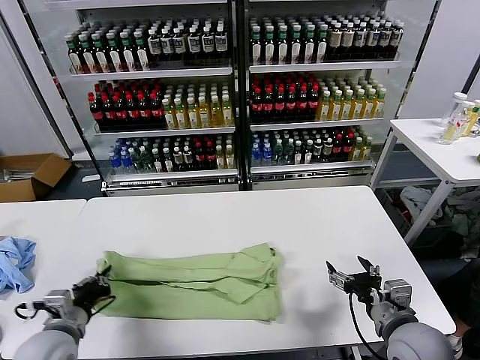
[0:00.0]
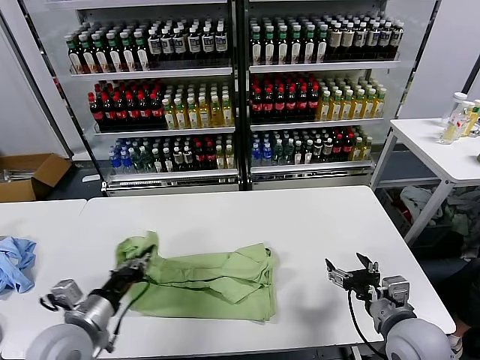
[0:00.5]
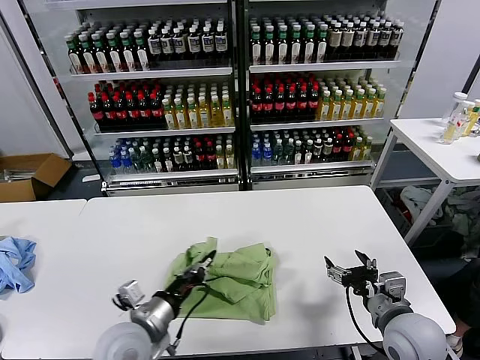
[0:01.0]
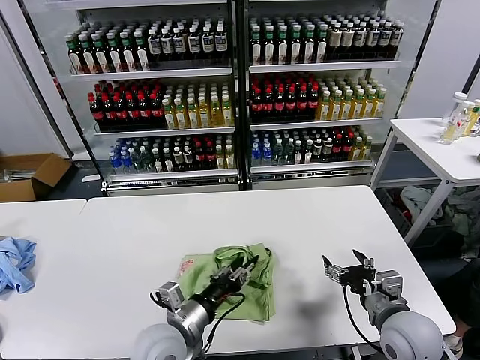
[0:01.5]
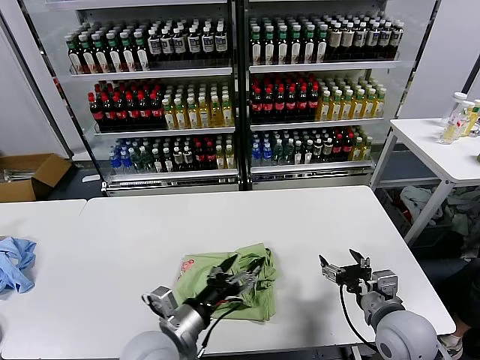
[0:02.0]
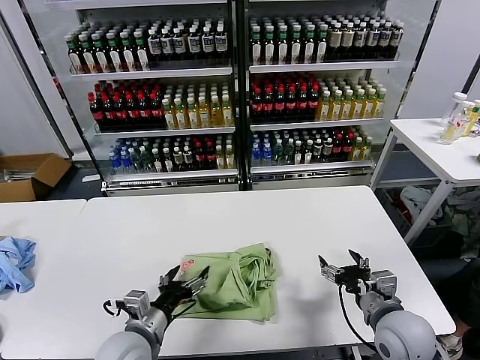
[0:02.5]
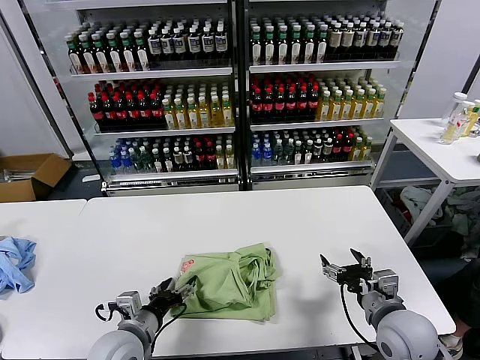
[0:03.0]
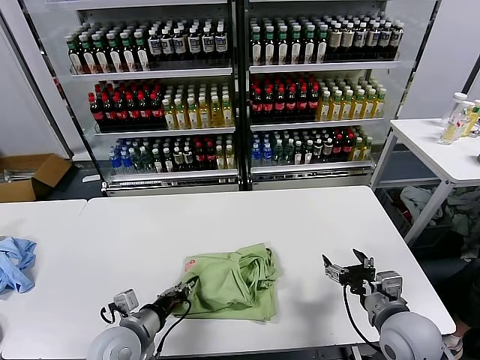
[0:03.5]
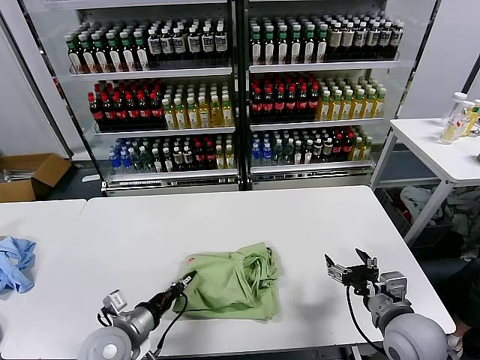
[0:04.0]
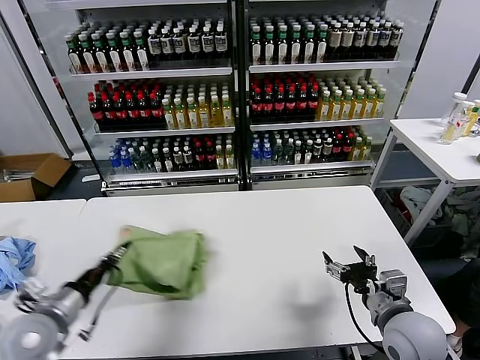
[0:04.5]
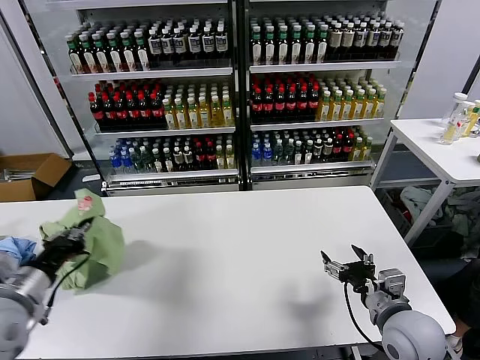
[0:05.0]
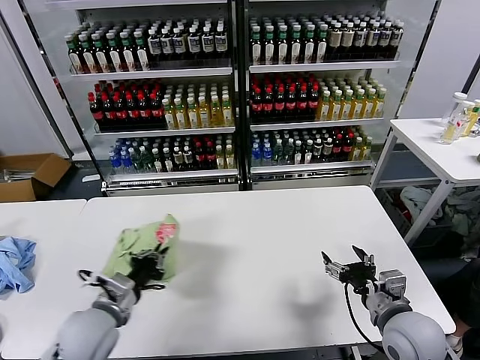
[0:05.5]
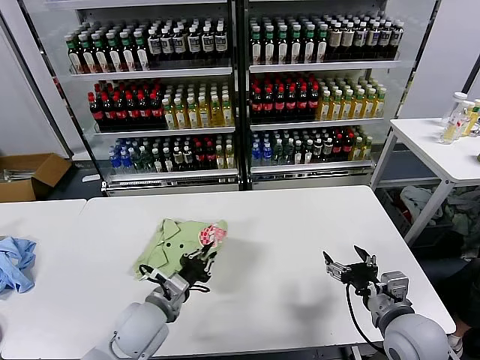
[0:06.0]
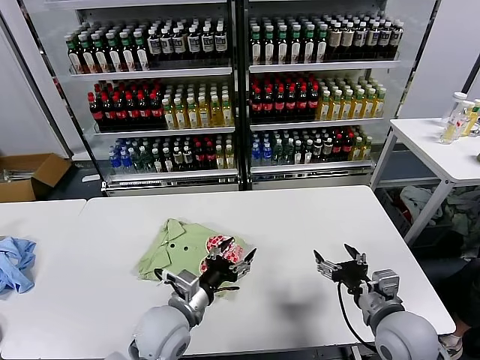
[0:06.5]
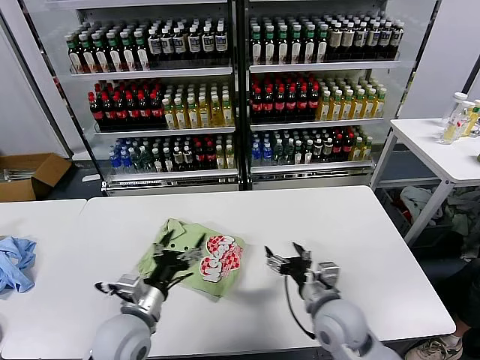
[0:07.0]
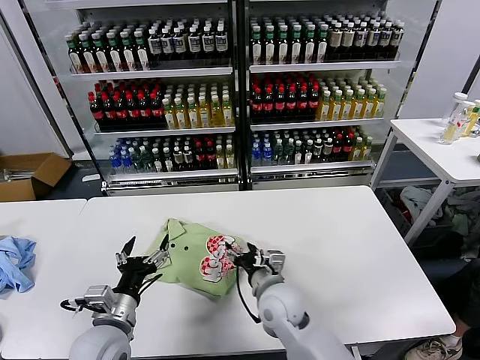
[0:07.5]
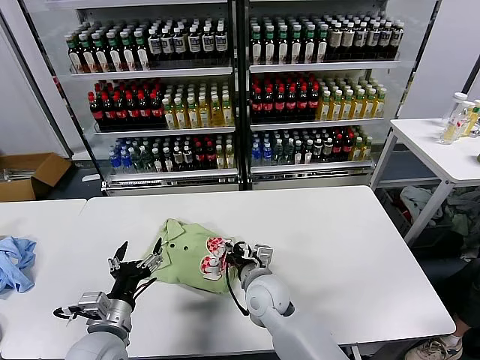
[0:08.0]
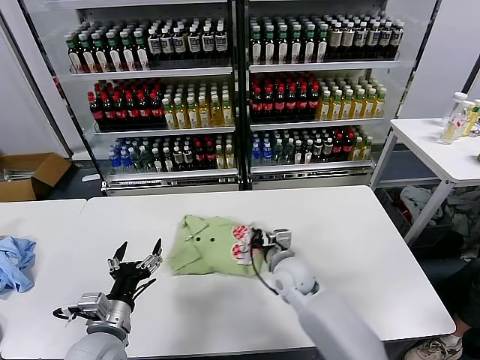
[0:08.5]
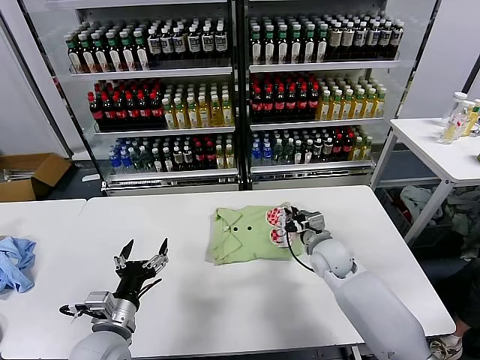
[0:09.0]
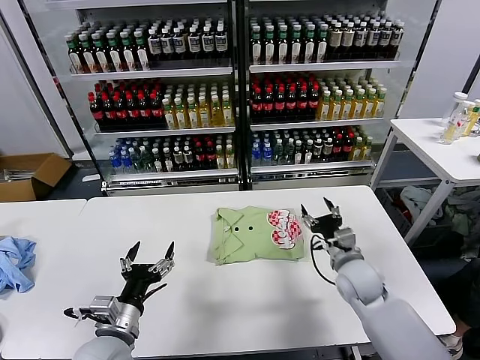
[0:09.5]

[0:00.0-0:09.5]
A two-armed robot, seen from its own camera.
Task of the whole recording: fold and organize the clothes.
Step, 0:00.0 to 0:01.5: use the left gripper to drag the left edge of the fabric to the left and folds it over the right edge.
Step, 0:02.0 to 0:06.0: Flip the folded clothes over with left gripper.
Step, 0:06.5 to 0:09.0: Drag the clothes to the center of the table.
0:00.0 to 0:02.0: The left gripper travels to the right by roughly 20 cm, and opens up.
0:02.0 to 0:04.0: The left gripper moves to the left and downward, approximately 10 cm, and closes its fingers.
0:04.0 to 0:05.5: The left gripper shifts approximately 5 cm upward.
0:05.5 to 0:07.5: The right gripper heads to the left and forward, covering about 25 cm; the left gripper goes to the right and returns, some 15 cm each way, and opens its fingers.
0:07.5 to 0:09.5: The right gripper heads to the right, covering approximately 15 cm, and closes, then opens again.
